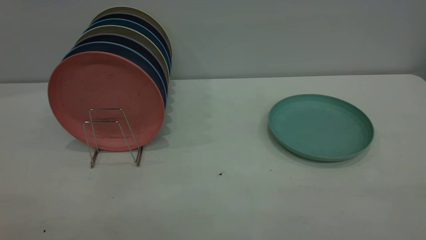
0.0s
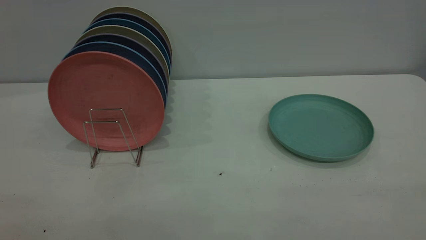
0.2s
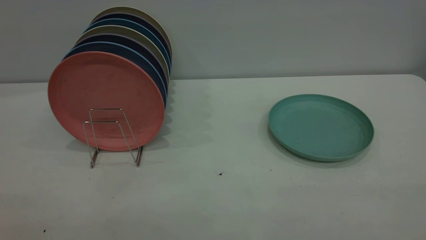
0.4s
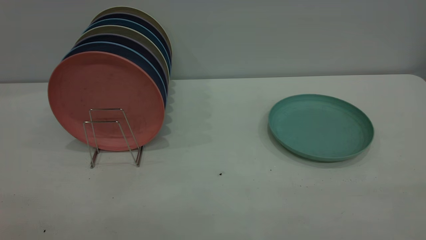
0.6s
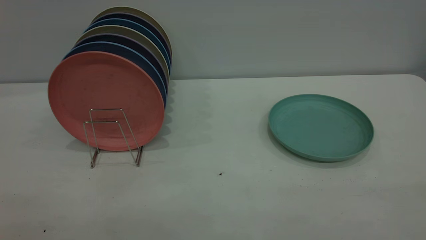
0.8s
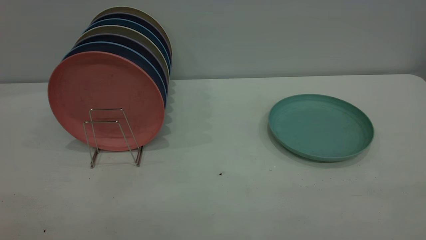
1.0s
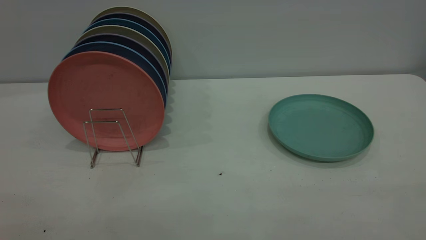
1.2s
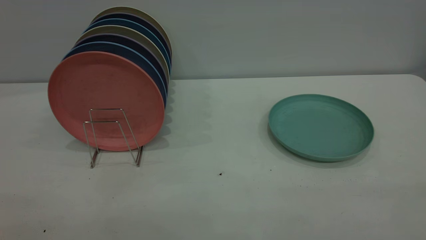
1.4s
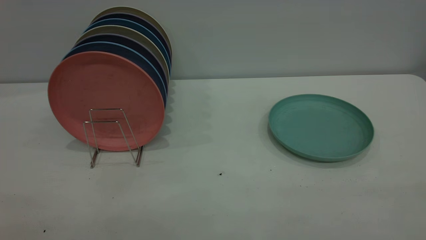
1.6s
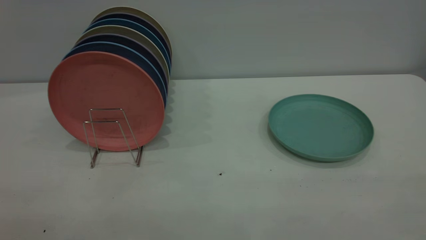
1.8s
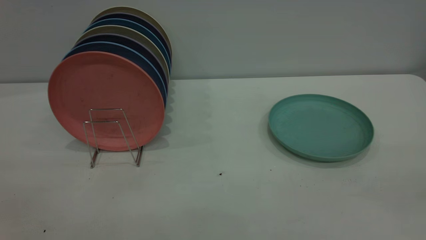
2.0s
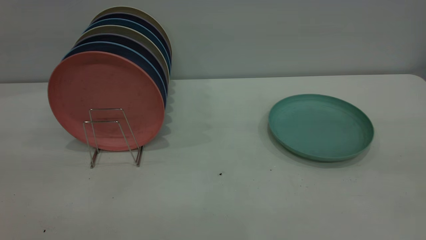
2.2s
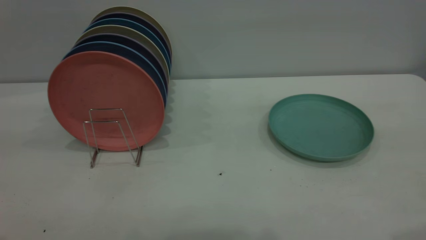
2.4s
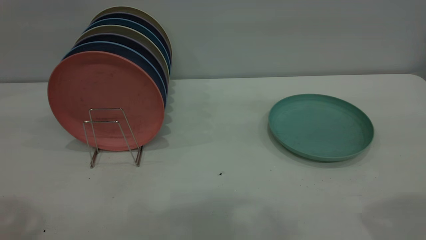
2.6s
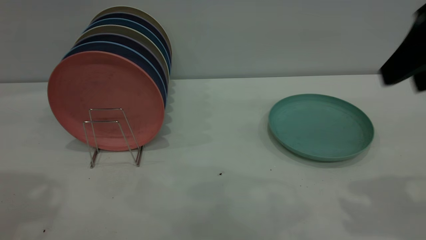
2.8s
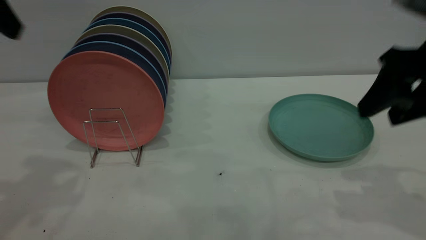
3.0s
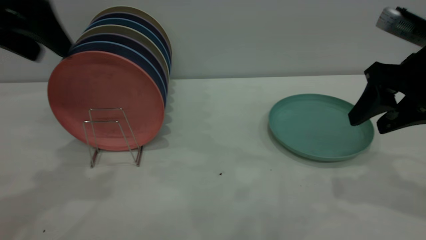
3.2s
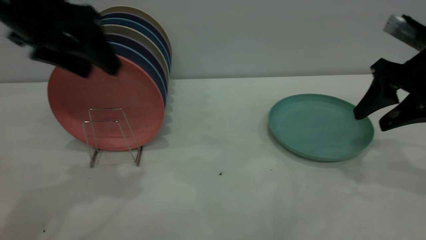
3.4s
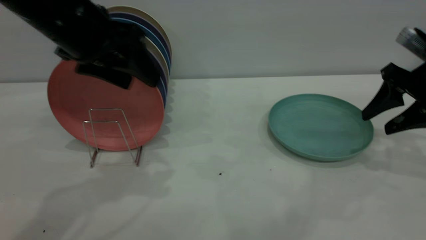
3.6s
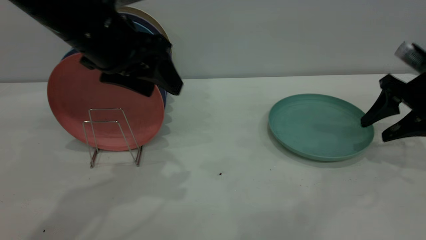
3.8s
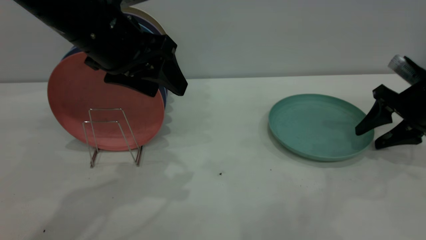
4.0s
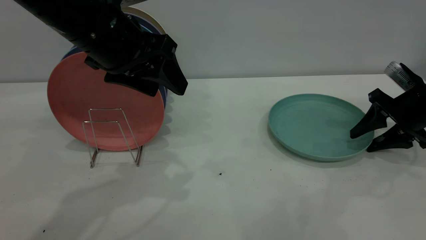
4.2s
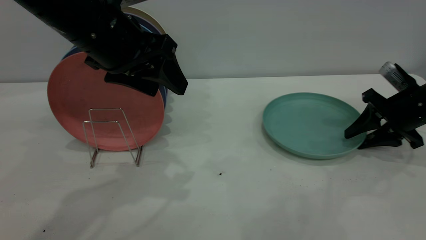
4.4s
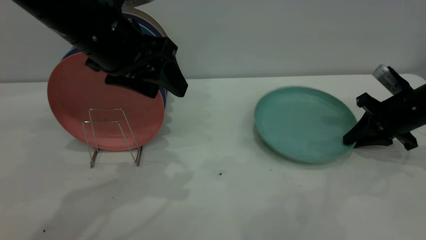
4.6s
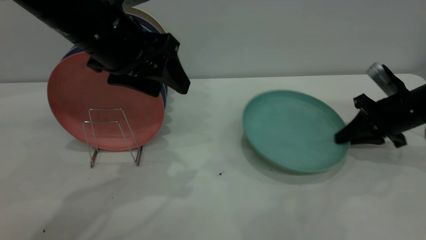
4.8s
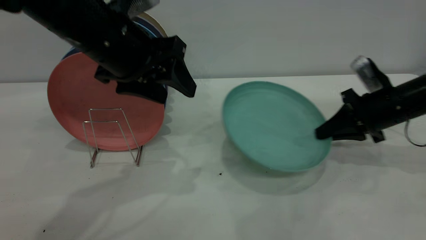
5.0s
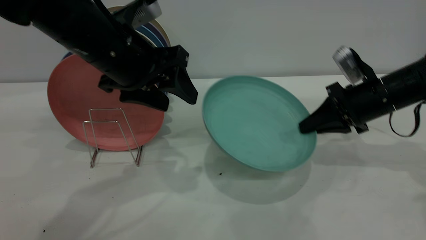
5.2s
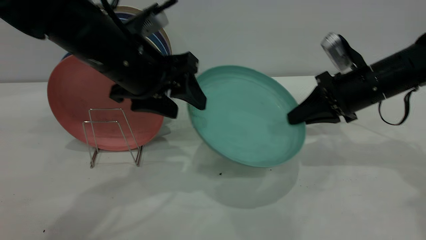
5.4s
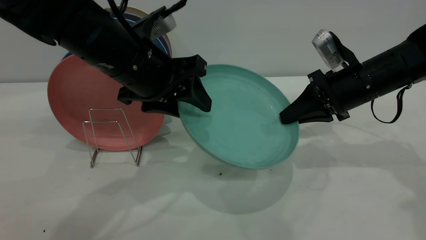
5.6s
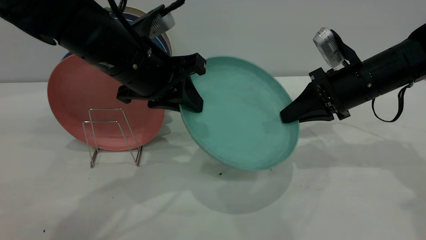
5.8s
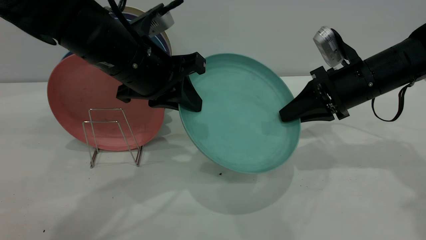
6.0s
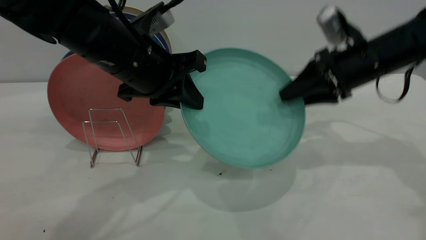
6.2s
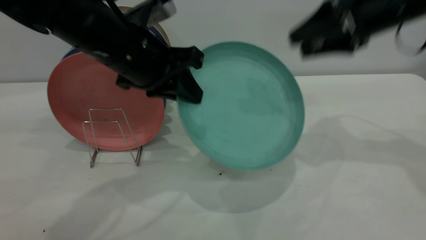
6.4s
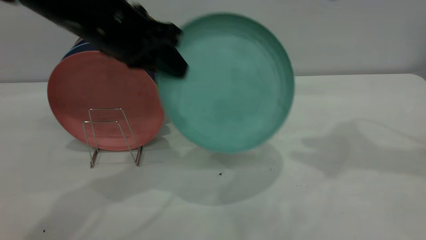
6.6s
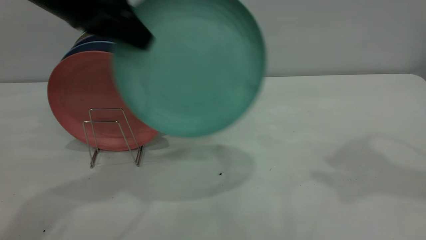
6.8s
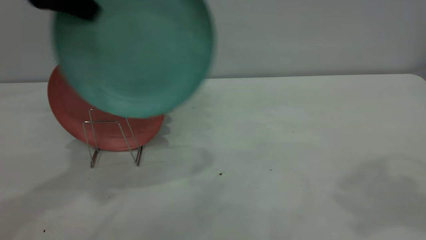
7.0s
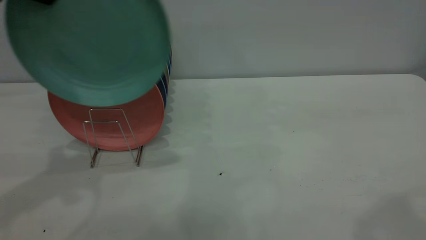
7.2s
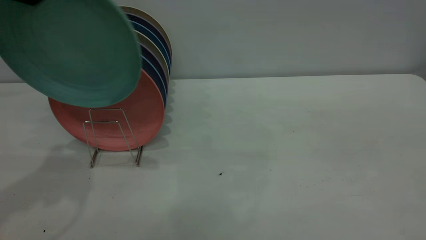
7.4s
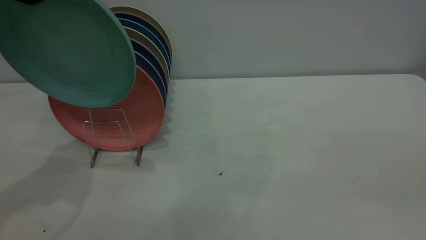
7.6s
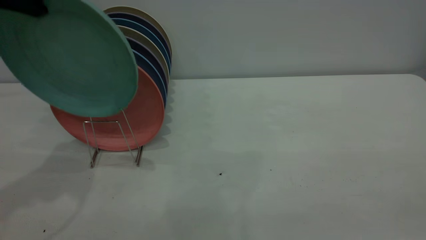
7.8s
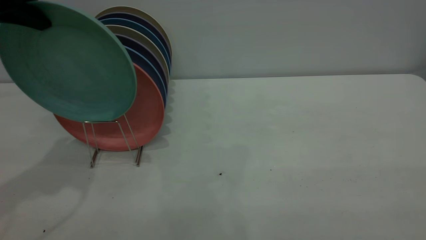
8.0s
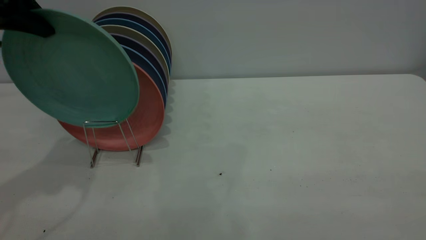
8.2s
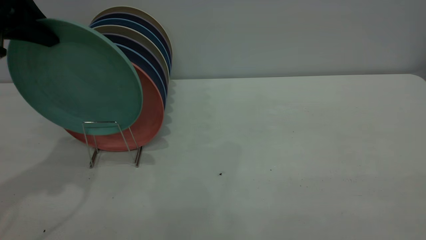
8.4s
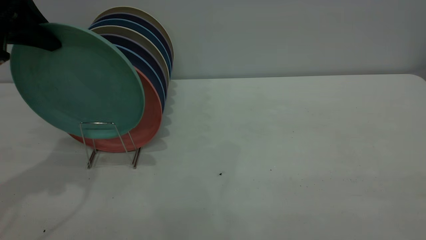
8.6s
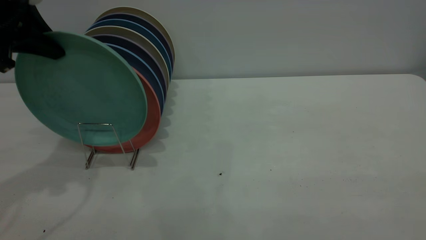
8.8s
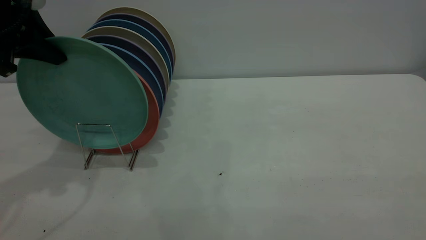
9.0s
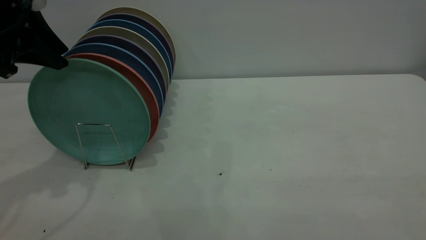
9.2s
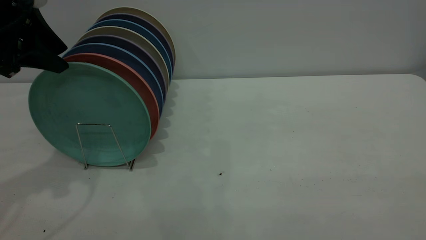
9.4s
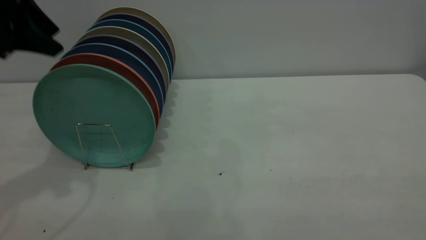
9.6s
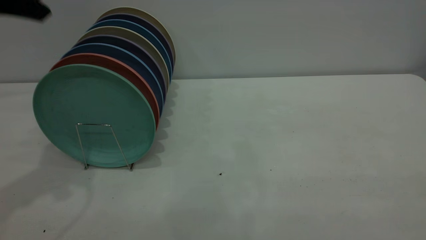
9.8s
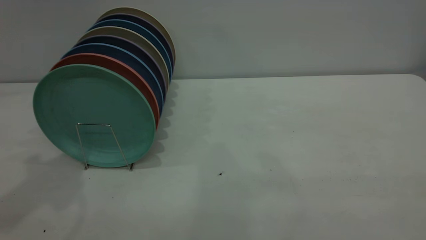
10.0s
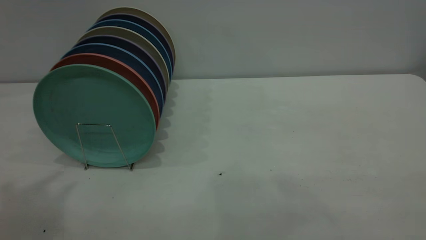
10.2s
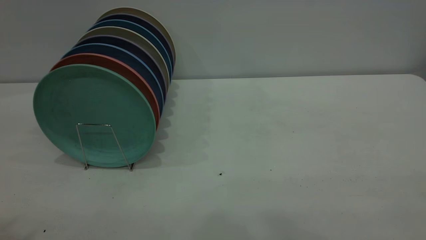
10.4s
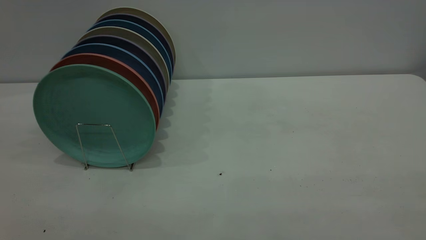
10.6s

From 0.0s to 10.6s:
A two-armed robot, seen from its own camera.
Task of the whole recording: the right gripper grasp the green plate, the right gripper pass the green plate to the left gripper, and the left gripper place the green plate on the plate rack.
Step, from 0.0s to 4.8s: Pick up the plate with the right gripper.
Step, from 5.0s to 6.2s: Pass the plate from the right gripper to the left gripper.
Step, from 6.4s to 9.4s: Place the plate on the shelf.
From 0.0s to 1.6s: Both grippers stay put.
From 1.6s to 3.0s: Both grippers move forward, approximately 30 cm.
From 3.0s to 4.6s: The right gripper shifts approximately 20 cm downward, forward and to the right, and closes. The left gripper shifts about 15 cm to the right and downward.
From 4.6s to 6.0s: The right gripper moves to the left and upward, approximately 10 cm. Meanwhile the left gripper moves roughly 5 cm, and closes its fingers.
From 6.0s to 7.6s: The right gripper travels backward and upward by roughly 40 cm, and opens. The left gripper heads to the left and upward, covering some 25 cm.
From 7.6s to 9.0s: The right gripper is displaced backward by about 10 cm; the left gripper is displaced downward by approximately 10 cm.
From 9.0s to 10.6s: The left gripper is displaced backward and upward by roughly 30 cm, and opens.

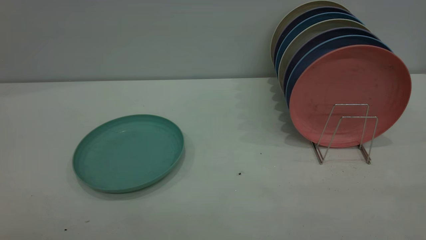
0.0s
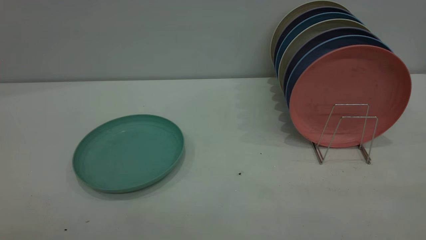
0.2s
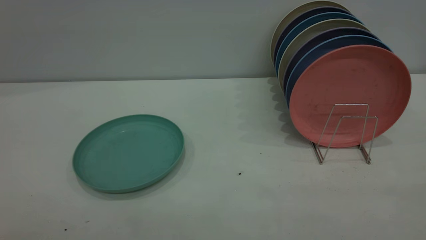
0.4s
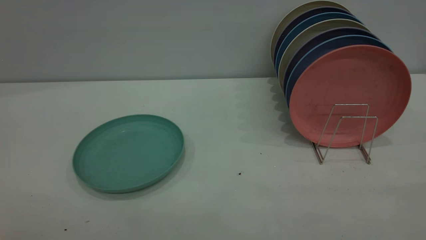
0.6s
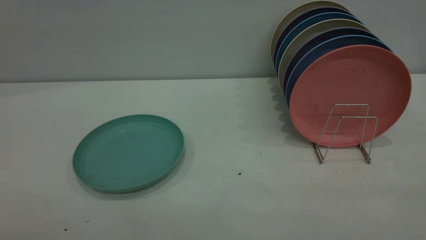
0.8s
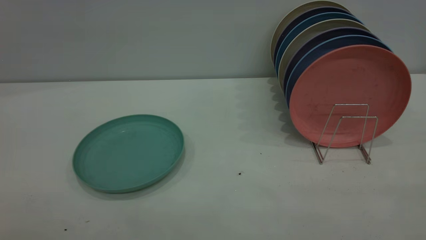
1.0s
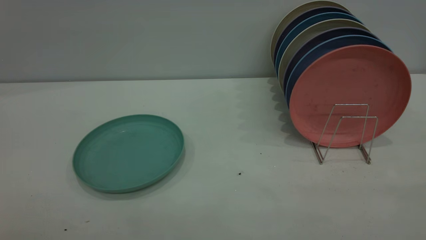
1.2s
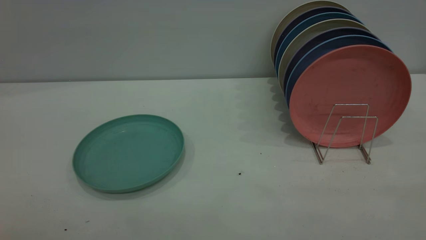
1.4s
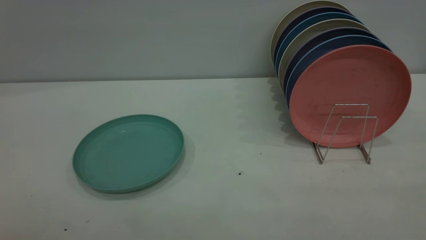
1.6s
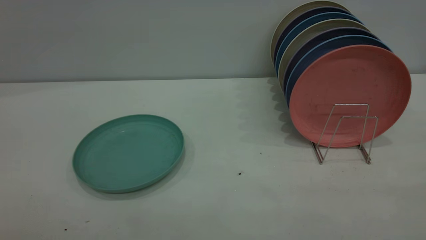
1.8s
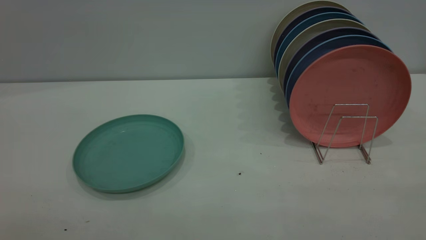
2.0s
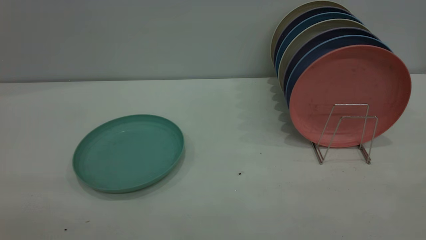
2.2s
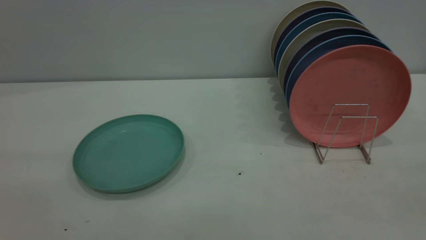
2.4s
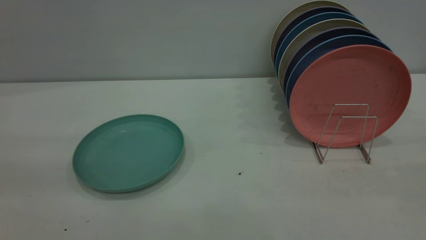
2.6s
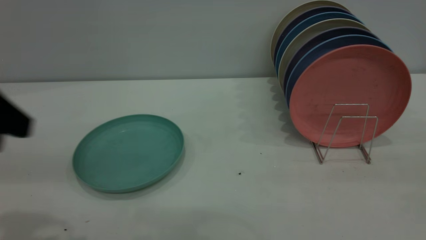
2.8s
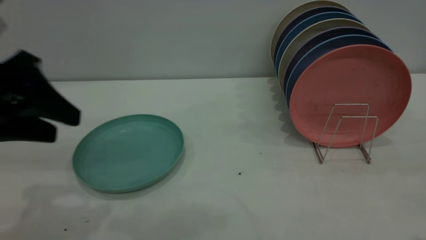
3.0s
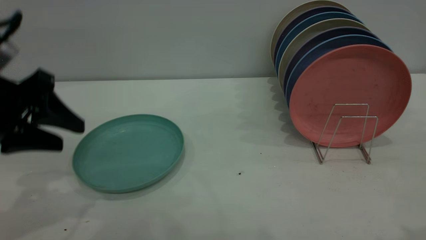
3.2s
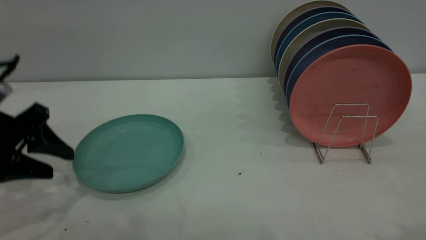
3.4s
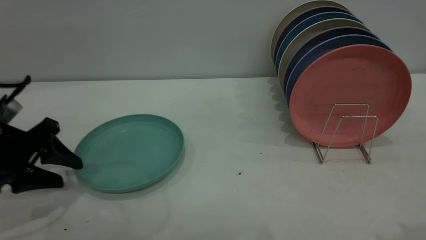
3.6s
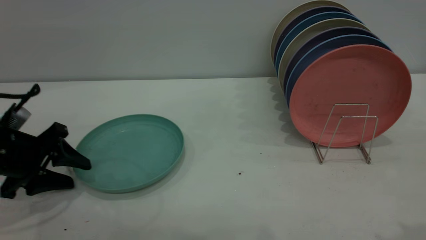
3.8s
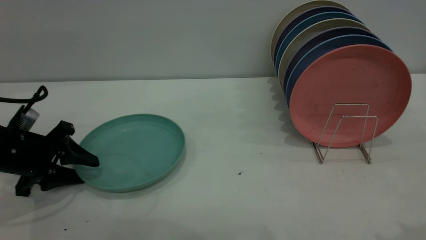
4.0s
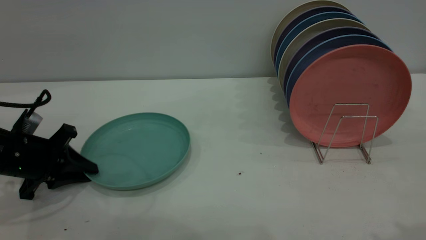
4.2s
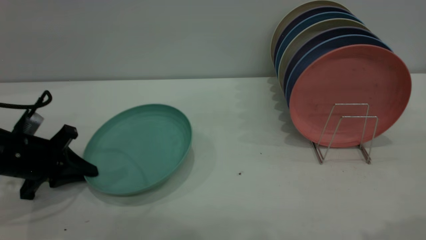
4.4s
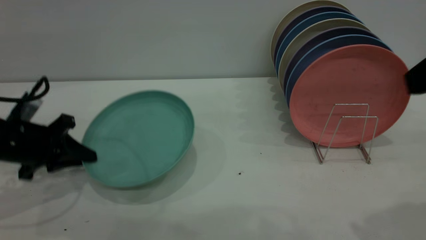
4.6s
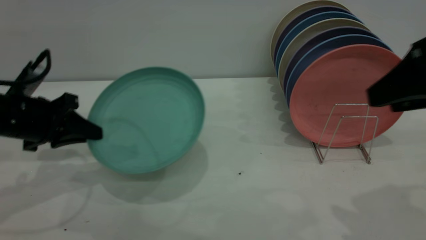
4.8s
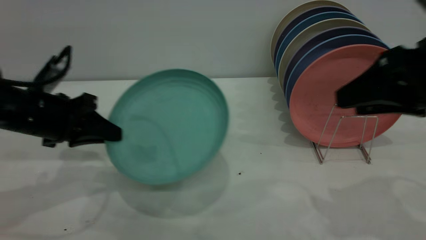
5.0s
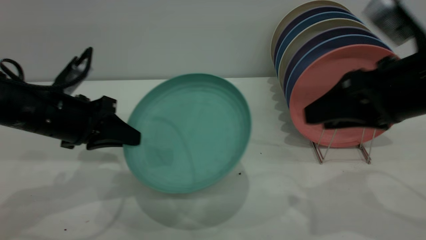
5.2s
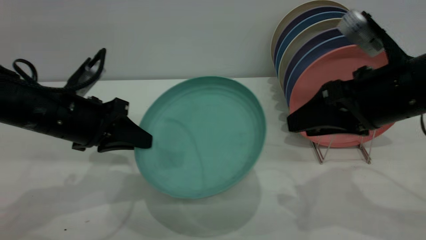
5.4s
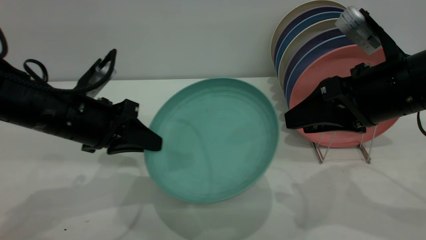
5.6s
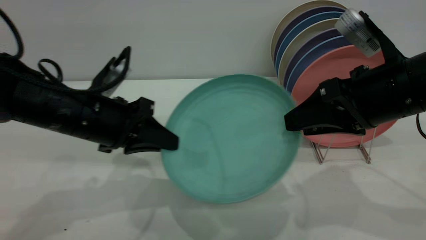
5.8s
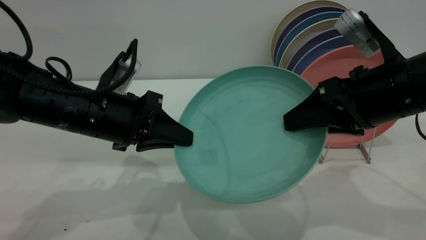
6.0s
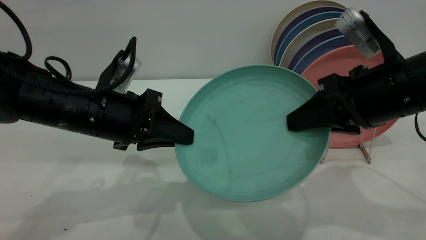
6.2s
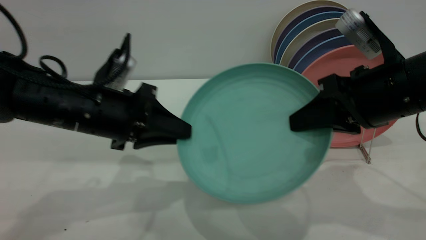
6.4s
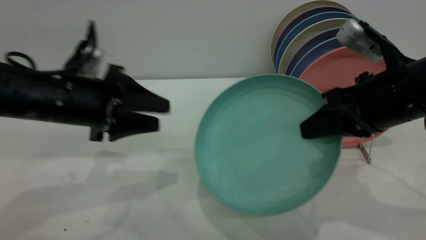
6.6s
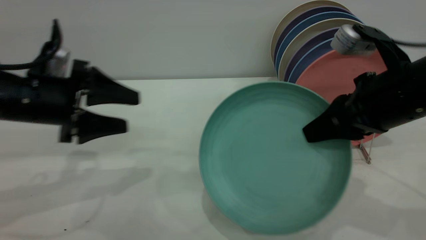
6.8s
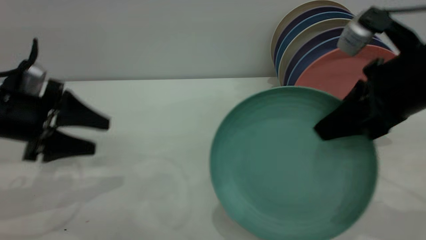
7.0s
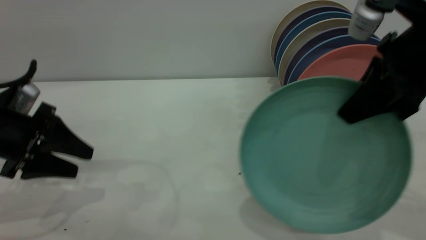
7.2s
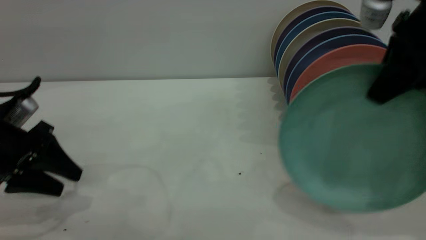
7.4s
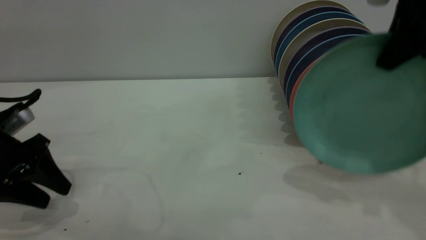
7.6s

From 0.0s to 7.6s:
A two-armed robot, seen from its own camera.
Task of the whole recording: the left gripper grasp the green plate, the left gripper pass the green plate to the right gripper, and the right gripper place the green plate on the plate rack.
Step, from 0.0s to 4.4s: Pick up the plate with the left gripper.
Step, from 4.6s to 6.6s: Pass the plate from the left gripper to the right gripper.
From 0.0s to 1.6s: Both grippers stay about where they are.
From 1.6s to 3.0s: The left gripper moves forward and downward, roughly 30 cm.
From 3.0s to 4.6s: The right gripper goes about 5 cm forward; the left gripper is displaced downward and forward by roughly 15 cm, and closes.
From 4.6s to 6.0s: The left gripper is displaced to the right by some 15 cm; the right gripper goes approximately 15 cm downward, forward and to the left.
From 6.0s to 7.6s: The left gripper heads to the left, covering roughly 15 cm, and opens up; the right gripper shifts roughly 10 cm upward, and closes.
